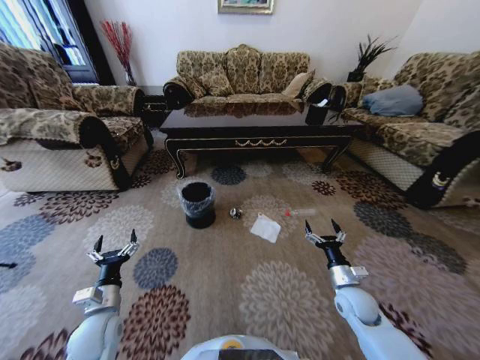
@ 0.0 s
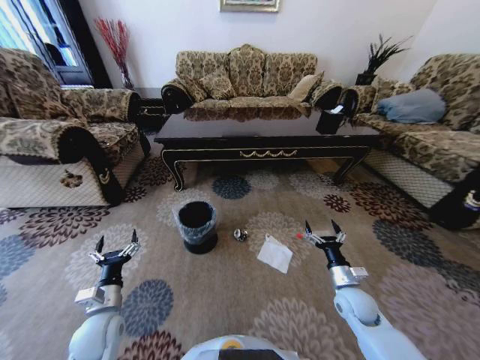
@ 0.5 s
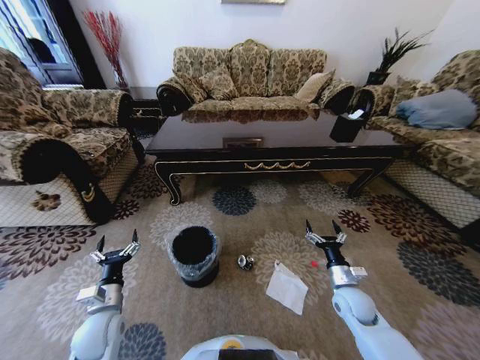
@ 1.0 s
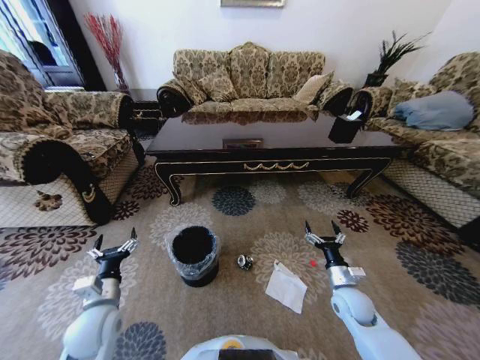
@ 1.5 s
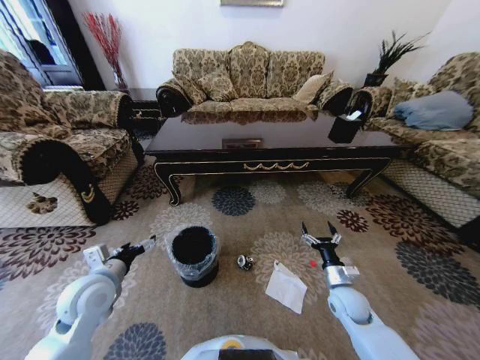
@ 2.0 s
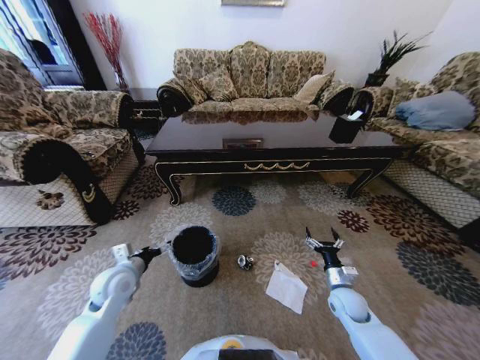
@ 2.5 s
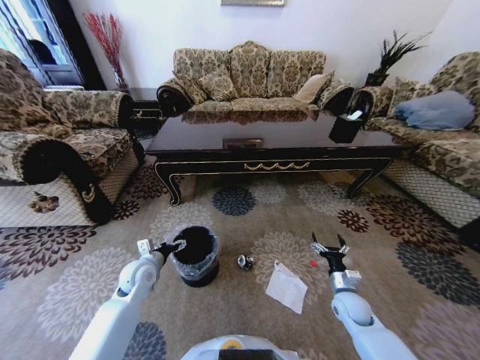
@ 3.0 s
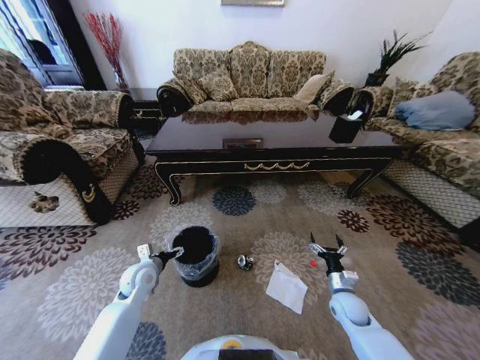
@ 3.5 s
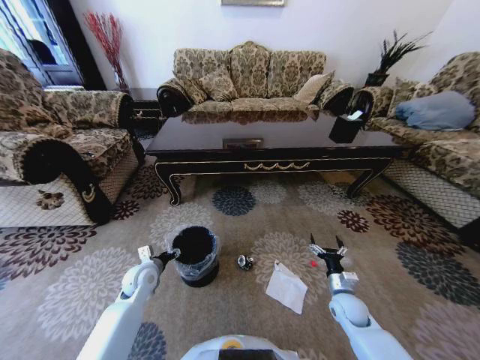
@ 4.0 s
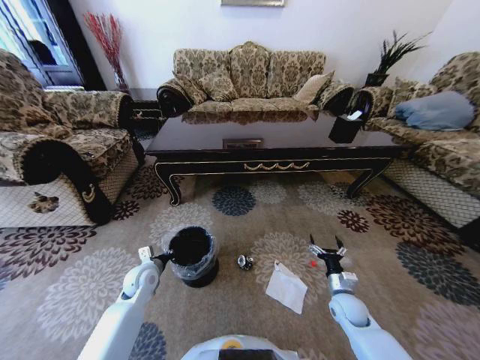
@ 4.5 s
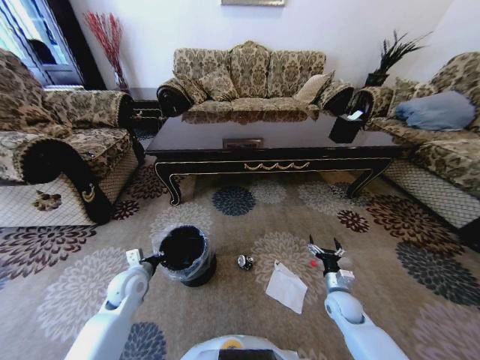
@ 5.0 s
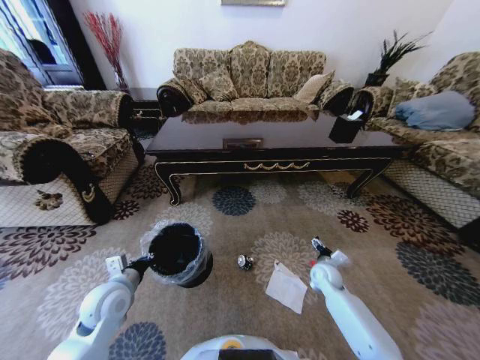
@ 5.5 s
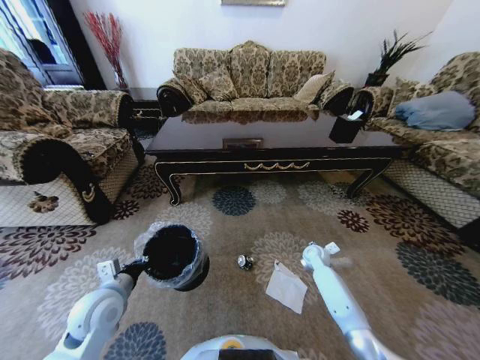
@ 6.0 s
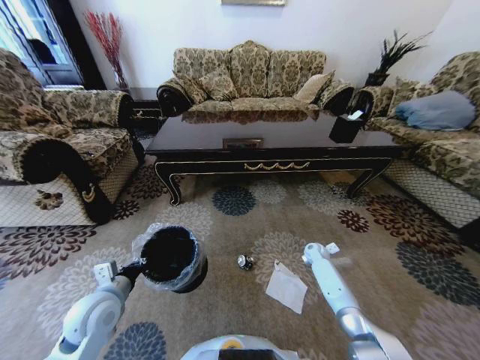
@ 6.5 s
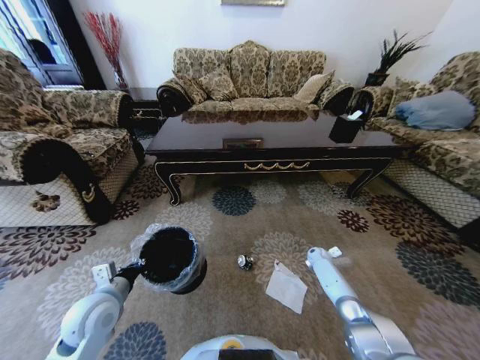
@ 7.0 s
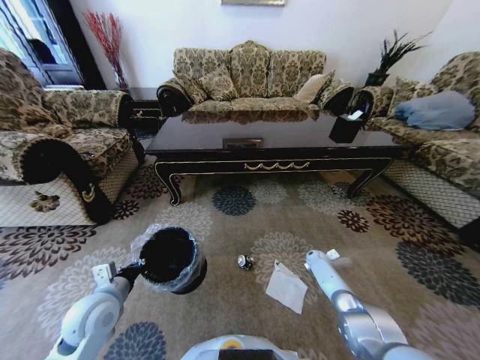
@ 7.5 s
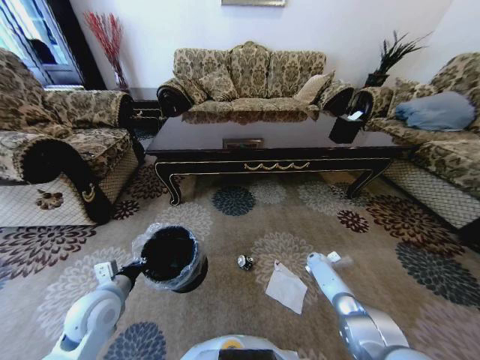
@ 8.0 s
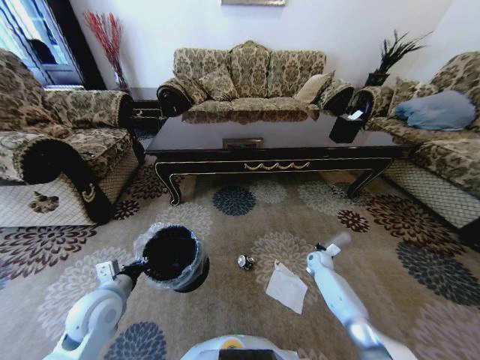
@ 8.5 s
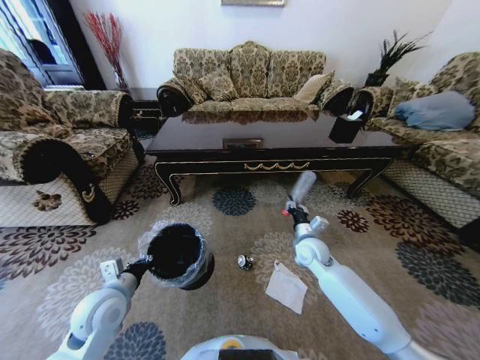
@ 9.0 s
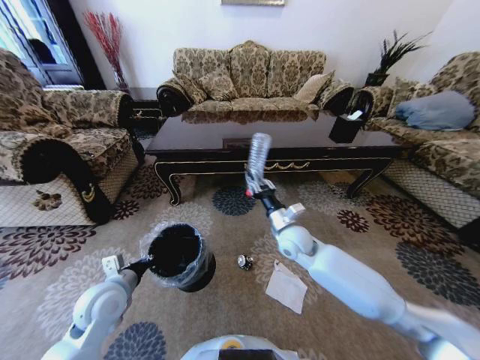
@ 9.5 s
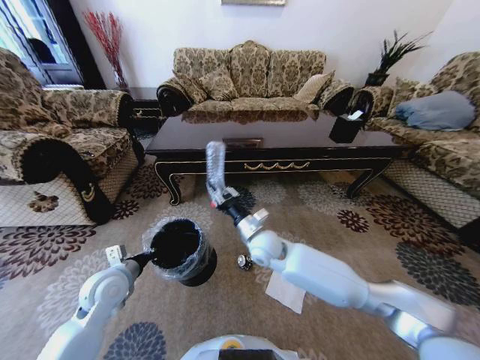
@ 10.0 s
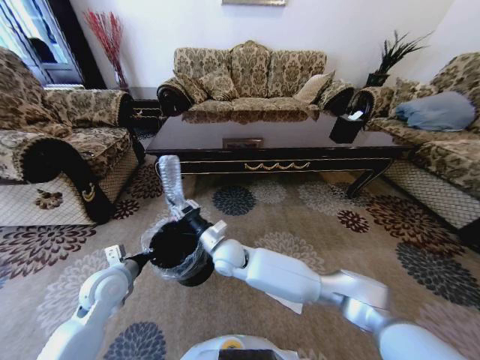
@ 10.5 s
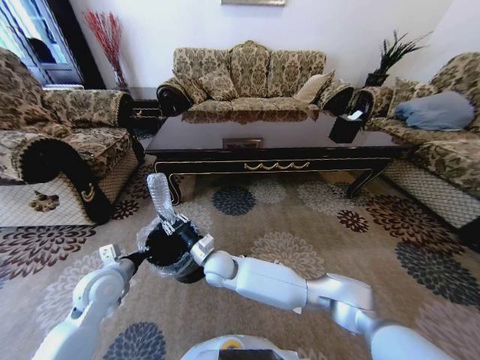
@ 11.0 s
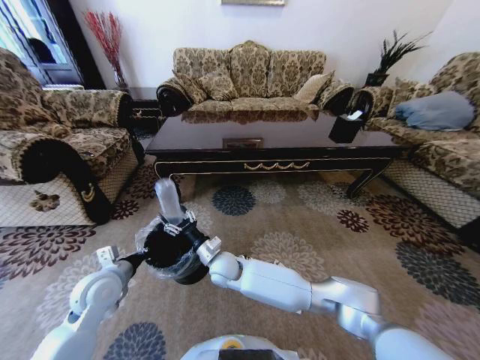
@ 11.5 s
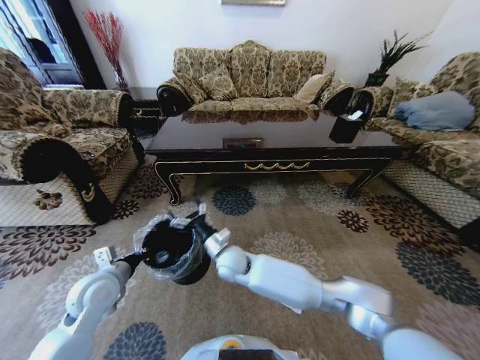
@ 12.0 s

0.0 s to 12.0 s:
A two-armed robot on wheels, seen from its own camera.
Task of the whole recording: Move to the front of the table and pick up the trash from the floor, then place it into the trash bin.
0.0 to 2.0 s: The left gripper moves upward and forward, approximately 10 cm.
2.0 to 4.0 s: The right gripper moves downward, roughly 5 cm. The left gripper is displaced downward and forward by about 15 cm.
4.0 to 6.0 s: The right gripper heads forward, covering roughly 20 cm; the left gripper moves backward and upward, approximately 15 cm, and closes up.
6.0 to 8.0 s: The right gripper moves downward and to the right, approximately 15 cm, and closes.
8.0 to 10.0 s: The right gripper travels to the left and upward by roughly 40 cm.
10.0 to 12.0 s: The right gripper goes roughly 10 cm to the left and downward, and opens up.

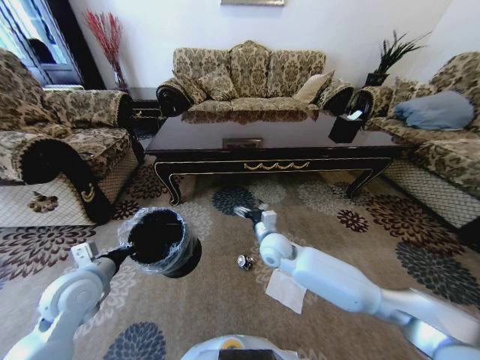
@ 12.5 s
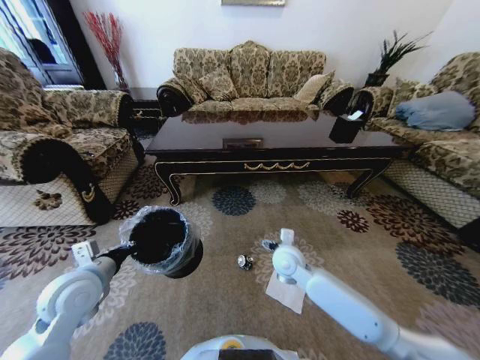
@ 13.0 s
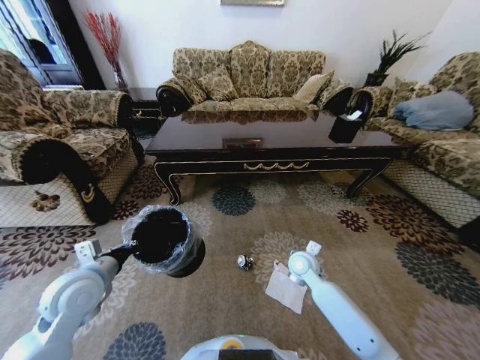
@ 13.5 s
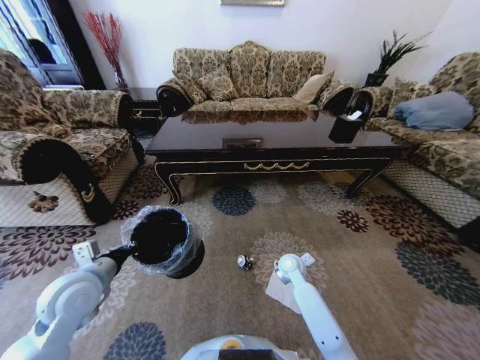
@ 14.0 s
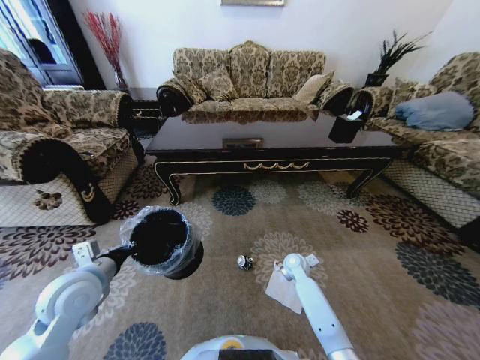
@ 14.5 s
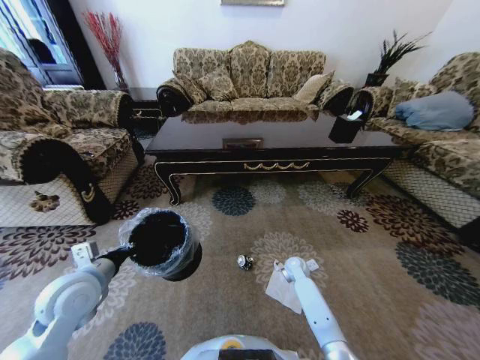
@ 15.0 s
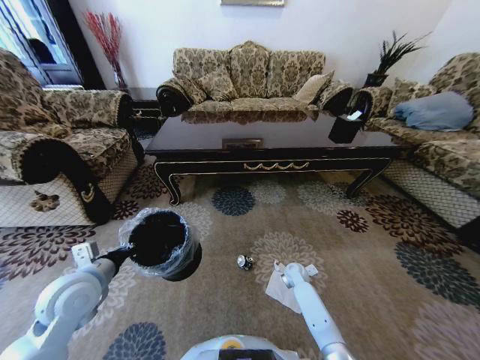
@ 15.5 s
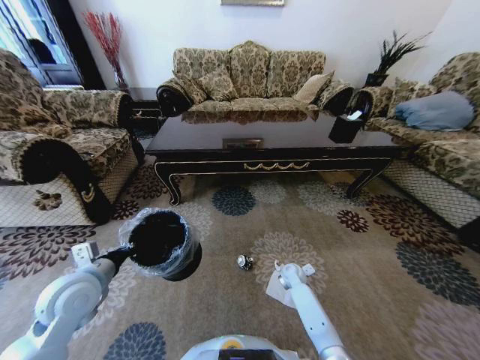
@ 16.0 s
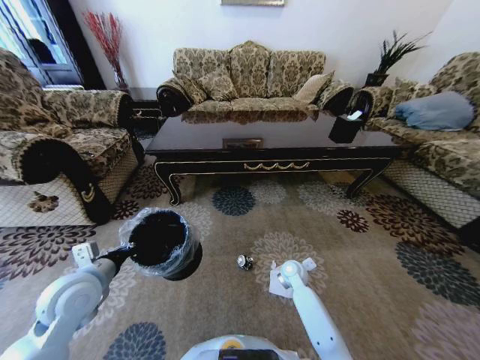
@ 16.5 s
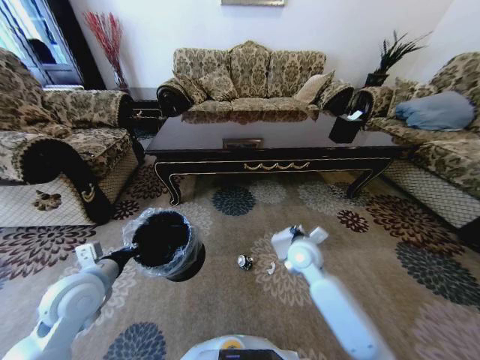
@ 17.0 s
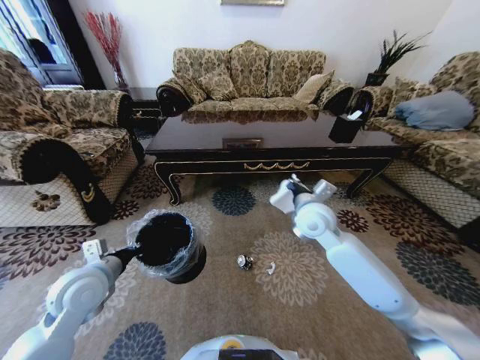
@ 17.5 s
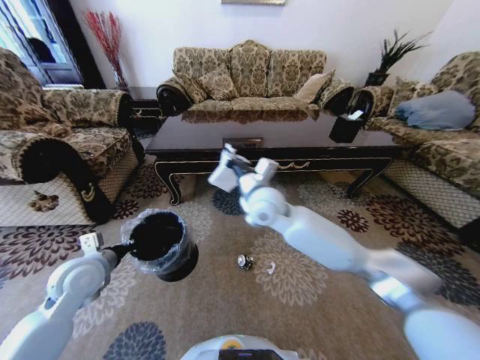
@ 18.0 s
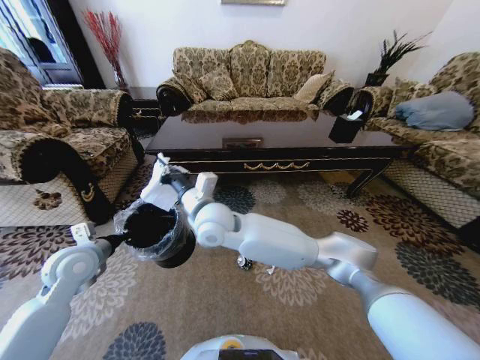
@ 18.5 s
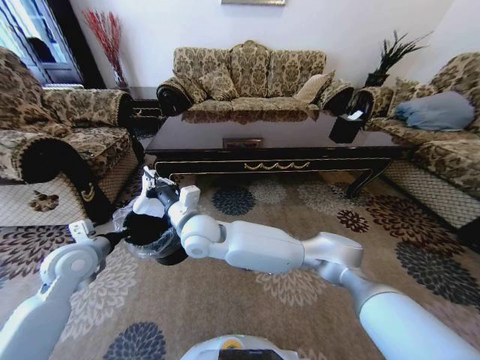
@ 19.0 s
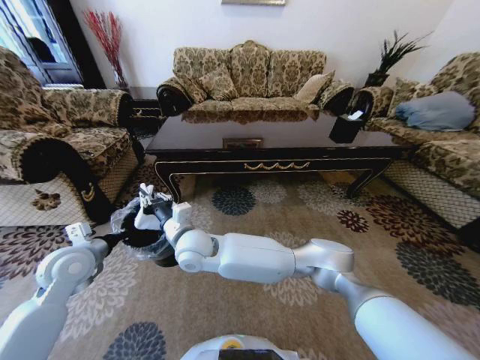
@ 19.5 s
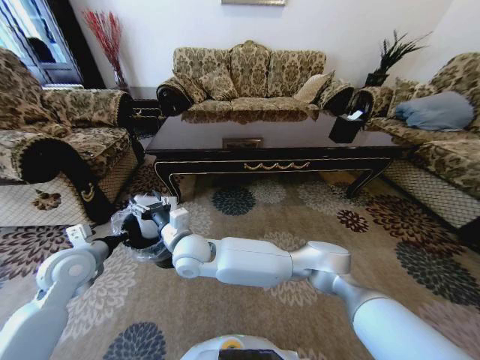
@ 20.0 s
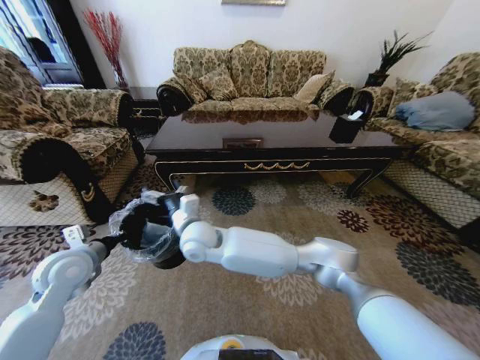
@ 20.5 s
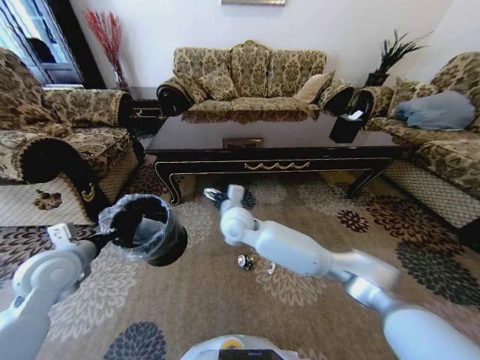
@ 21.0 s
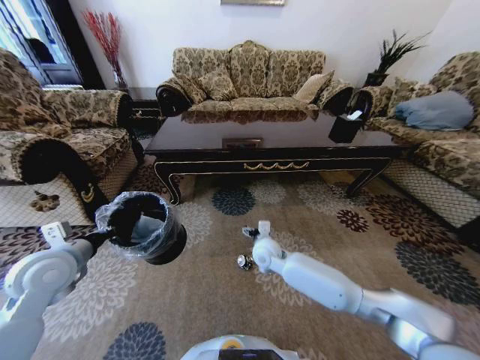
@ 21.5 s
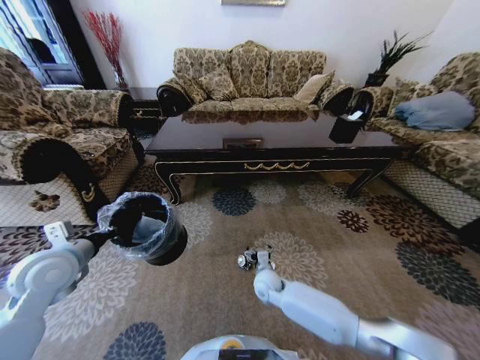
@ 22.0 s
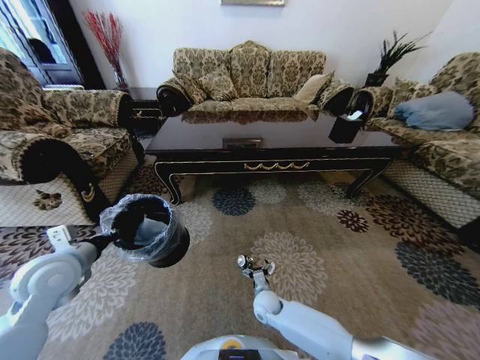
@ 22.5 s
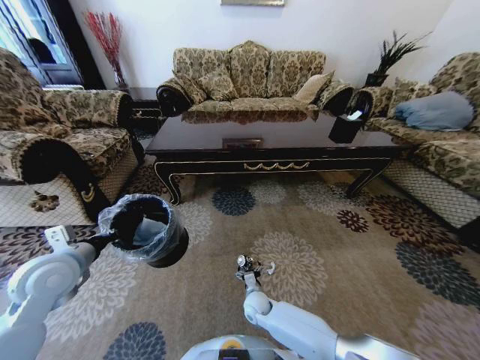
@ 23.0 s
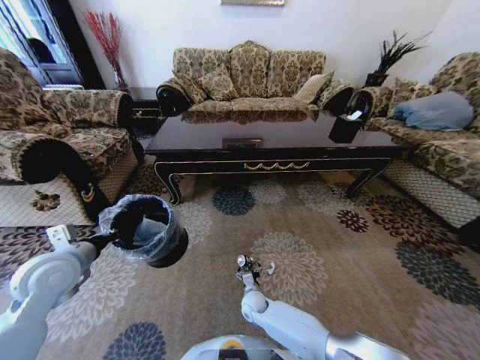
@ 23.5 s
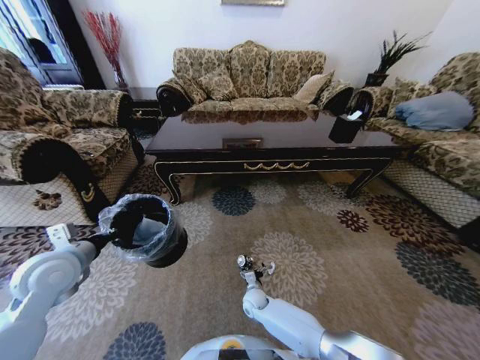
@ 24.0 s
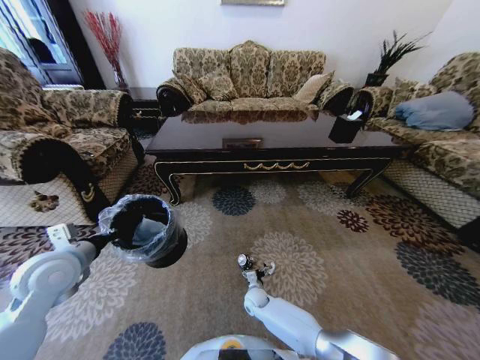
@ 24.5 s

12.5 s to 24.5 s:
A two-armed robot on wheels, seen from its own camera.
Task of the whole recording: Move to the front of the table and pick up the trash from the floor, then place it into the trash bin.
12.5 to 14.5 s: The right gripper travels downward and to the right by about 20 cm.
14.5 to 16.5 s: The right gripper closes.
16.5 to 18.5 s: The left gripper moves forward, about 5 cm; the right gripper heads upward and to the left, covering roughly 40 cm.
18.5 to 20.5 s: The right gripper shifts about 5 cm downward, and opens its fingers.
20.5 to 22.5 s: The right gripper moves downward and to the right, about 40 cm.
22.5 to 24.5 s: The right gripper is displaced downward by about 5 cm.

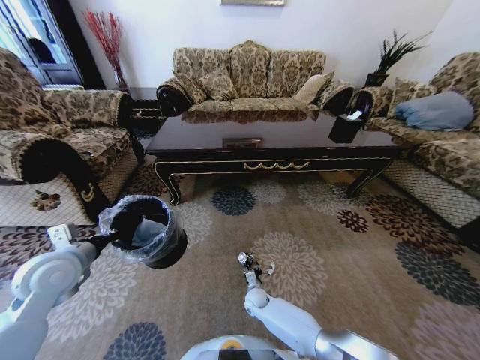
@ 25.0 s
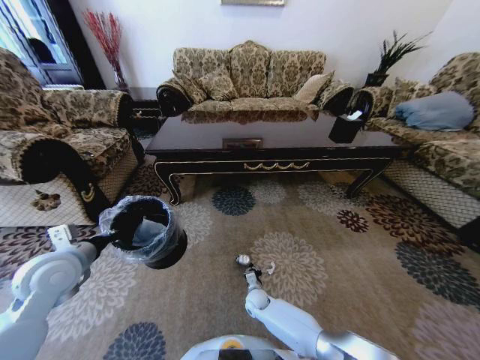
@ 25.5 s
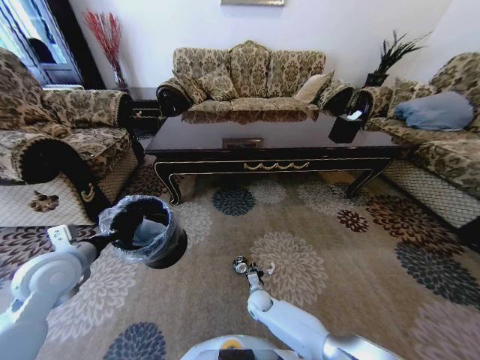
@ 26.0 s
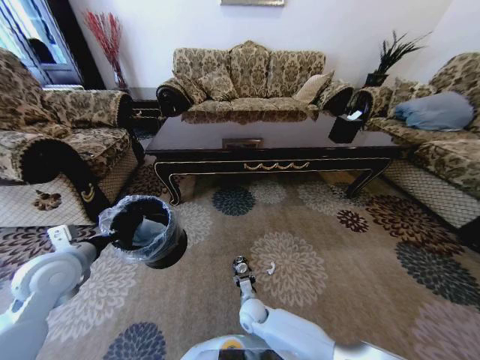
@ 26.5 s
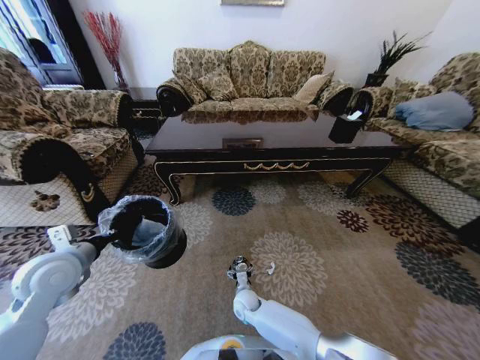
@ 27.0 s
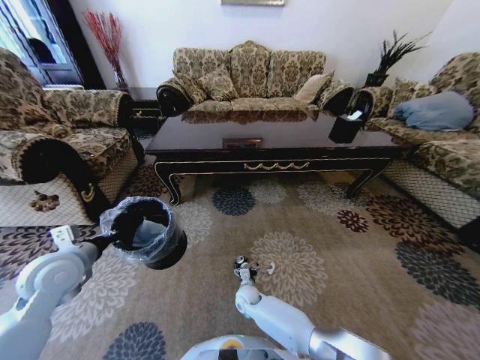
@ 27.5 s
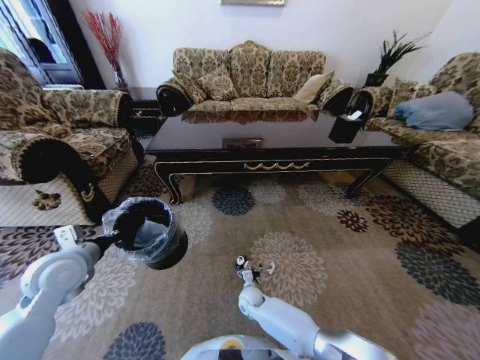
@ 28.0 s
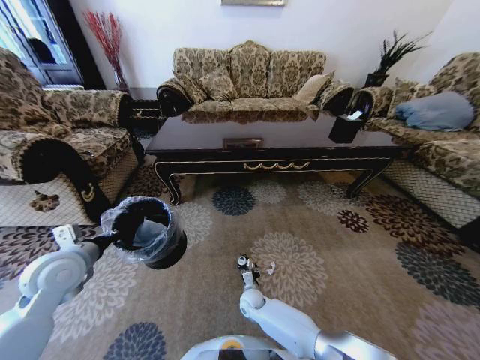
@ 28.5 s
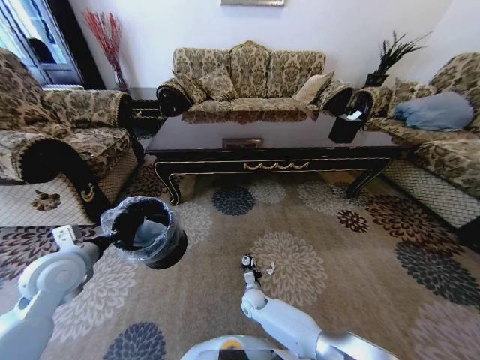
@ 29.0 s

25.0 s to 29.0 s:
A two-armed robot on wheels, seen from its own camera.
Task of the whole recording: Move to the front of the table and pick up the trash from the floor, then place it into the trash bin.
25.0 to 27.0 s: The right gripper ends up approximately 5 cm from where it was, and opens.
27.0 to 29.0 s: The right gripper shifts by approximately 5 cm, and closes.
